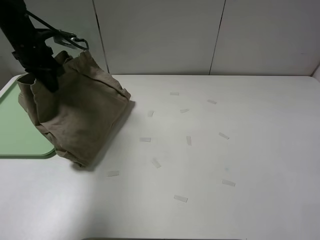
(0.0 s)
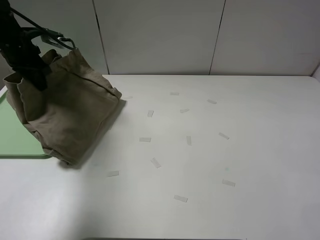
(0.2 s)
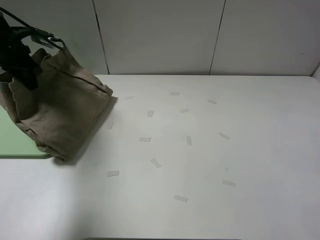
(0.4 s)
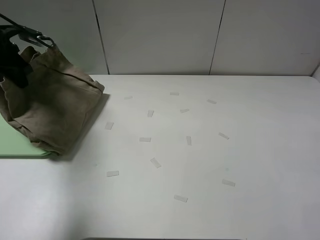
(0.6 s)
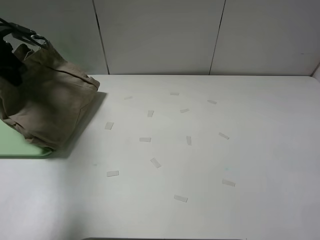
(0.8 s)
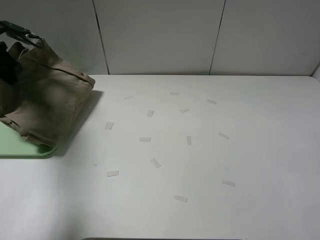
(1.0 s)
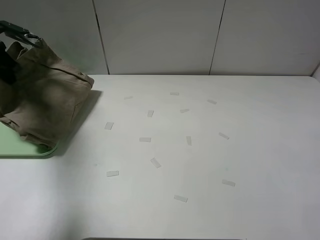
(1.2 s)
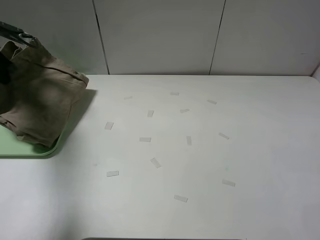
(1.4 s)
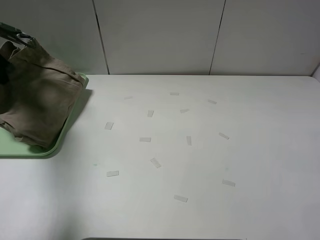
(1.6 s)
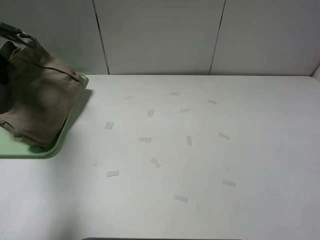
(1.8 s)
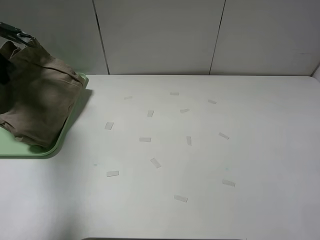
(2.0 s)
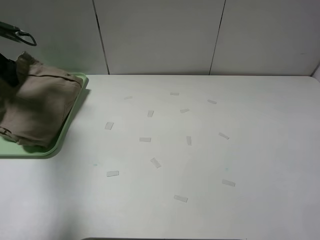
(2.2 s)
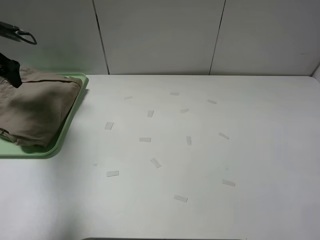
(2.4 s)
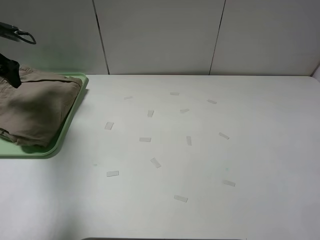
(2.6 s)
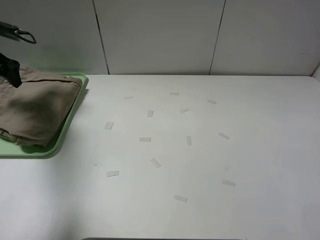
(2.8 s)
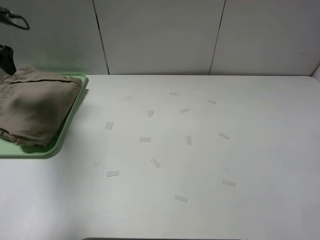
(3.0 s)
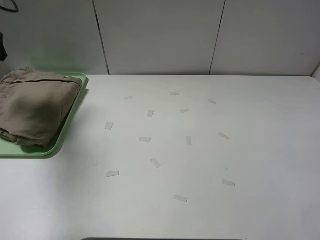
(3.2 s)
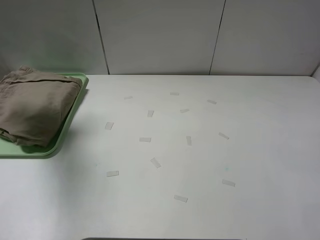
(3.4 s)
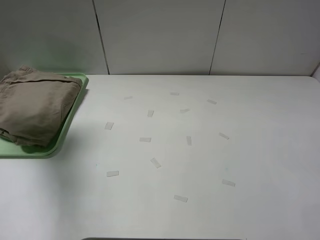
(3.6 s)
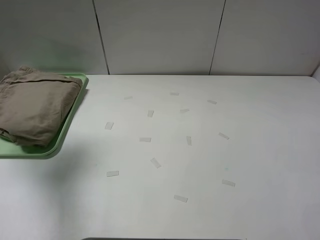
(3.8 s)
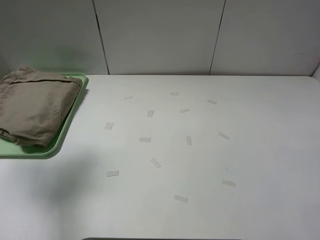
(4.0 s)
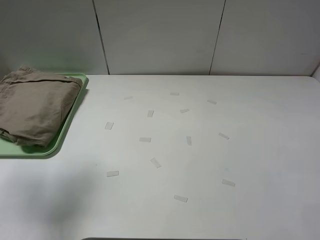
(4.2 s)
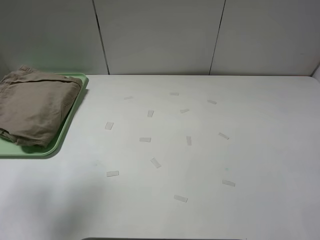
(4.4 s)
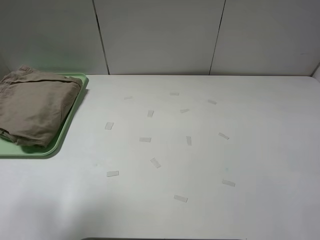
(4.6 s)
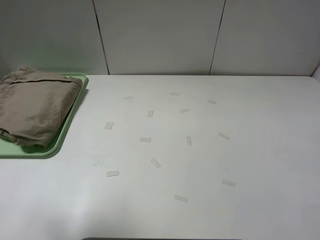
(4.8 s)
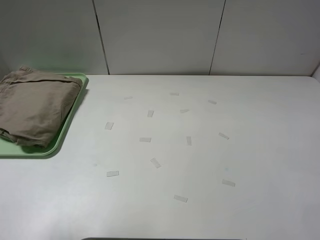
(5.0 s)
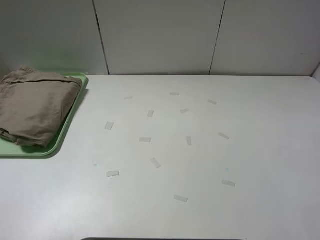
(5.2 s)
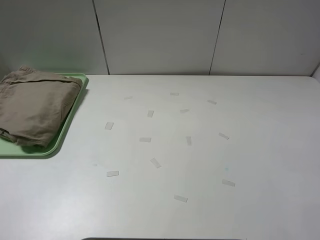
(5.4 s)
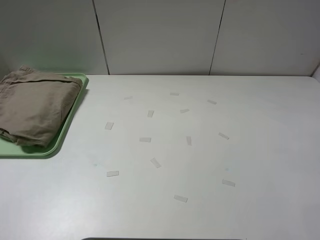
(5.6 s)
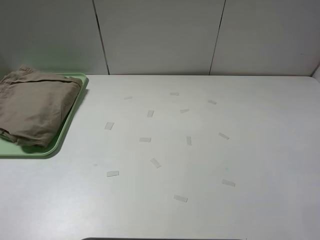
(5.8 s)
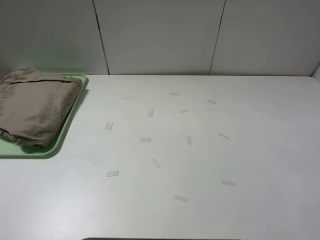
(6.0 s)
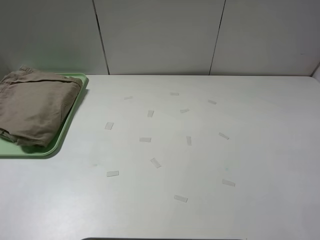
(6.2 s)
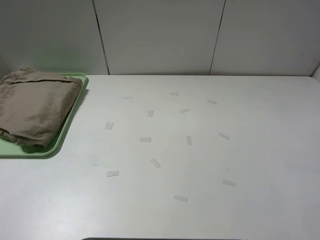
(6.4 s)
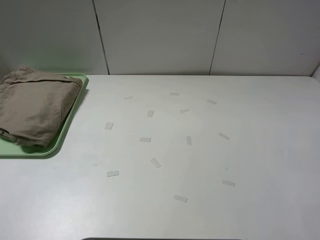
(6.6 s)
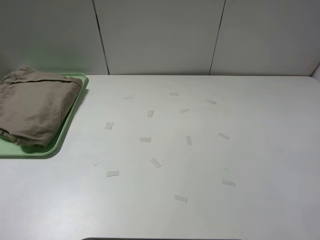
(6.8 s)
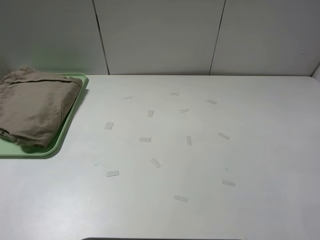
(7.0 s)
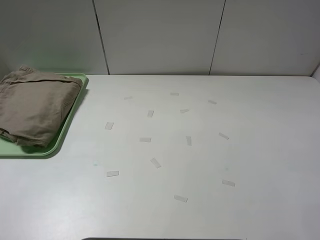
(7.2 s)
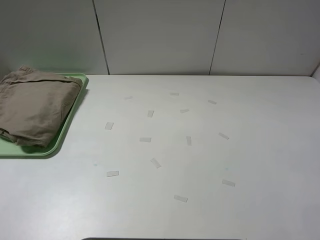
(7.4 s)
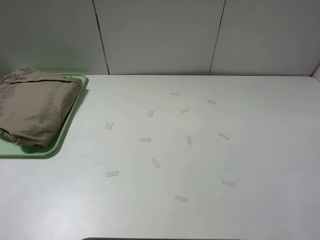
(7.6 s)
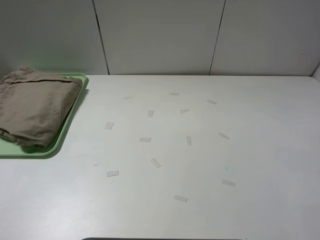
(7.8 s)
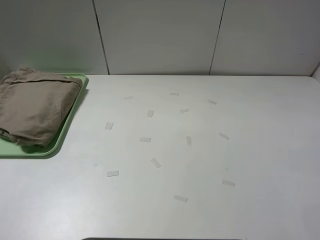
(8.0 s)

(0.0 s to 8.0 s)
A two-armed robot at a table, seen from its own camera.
Task of the whole recording: fold the khaki jeans in half with two grippers, then fold them in half again, and use the left claw to place the folded fold khaki jeans on the tray.
Step, 0.0 s - 2.2 s: Place the folded khaki trousers on the green tray with the left gripper.
0.0 s - 1.6 s: The left gripper moves to the left, some 15 cm.
1.6 s - 3.2 s: The left gripper shifts roughly 10 cm upward, and opens up.
3.2 s - 4.8 s: The left gripper moves backward, some 30 cm.
4.8 s - 6.4 s: The left gripper is displaced backward and downward by roughly 15 cm.

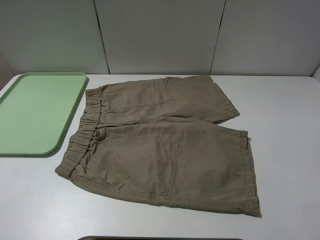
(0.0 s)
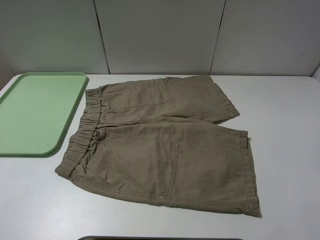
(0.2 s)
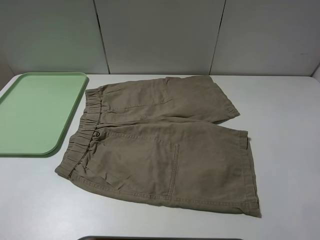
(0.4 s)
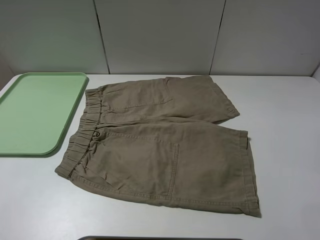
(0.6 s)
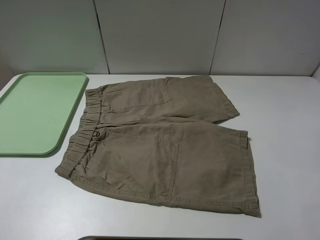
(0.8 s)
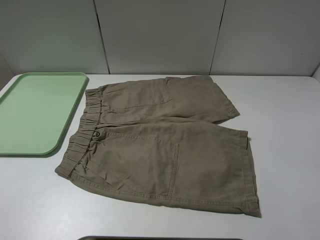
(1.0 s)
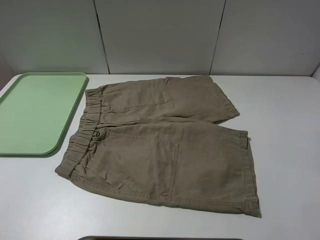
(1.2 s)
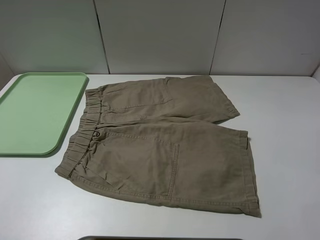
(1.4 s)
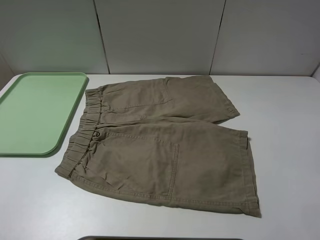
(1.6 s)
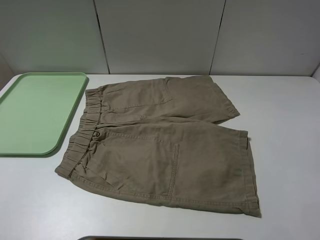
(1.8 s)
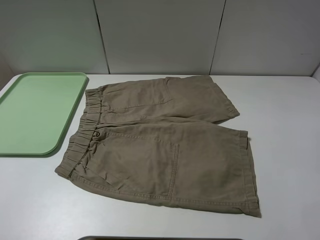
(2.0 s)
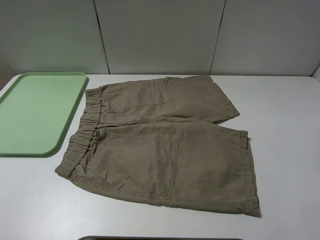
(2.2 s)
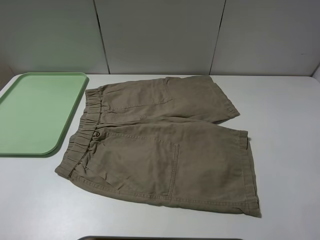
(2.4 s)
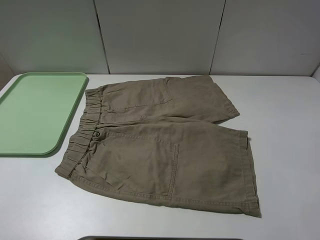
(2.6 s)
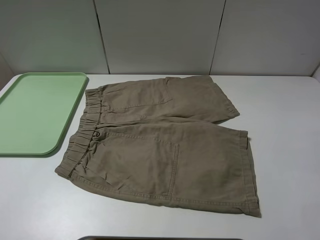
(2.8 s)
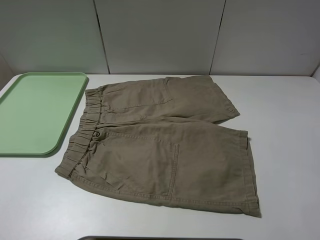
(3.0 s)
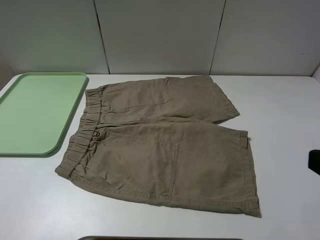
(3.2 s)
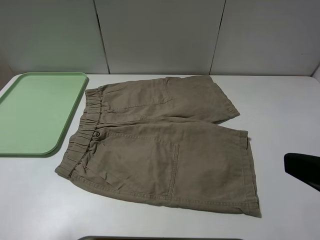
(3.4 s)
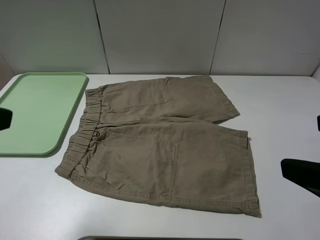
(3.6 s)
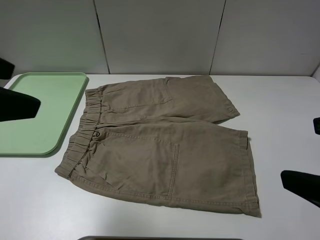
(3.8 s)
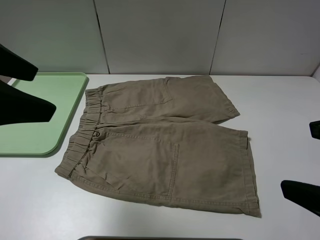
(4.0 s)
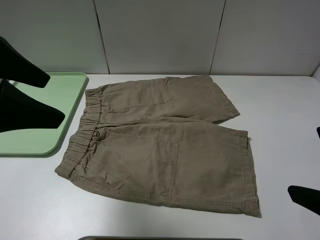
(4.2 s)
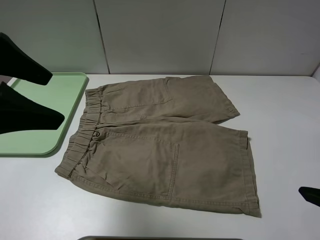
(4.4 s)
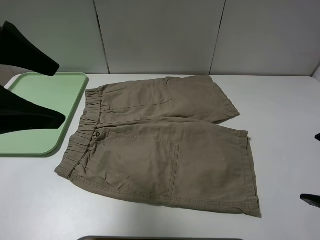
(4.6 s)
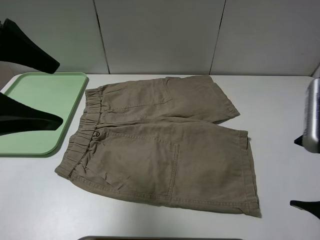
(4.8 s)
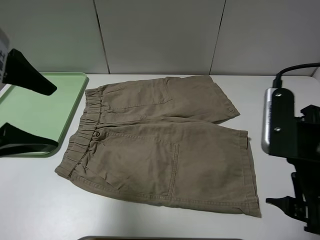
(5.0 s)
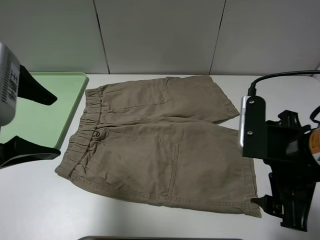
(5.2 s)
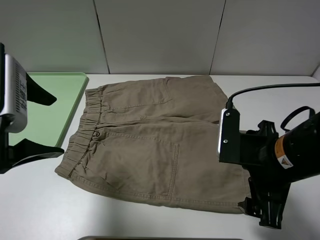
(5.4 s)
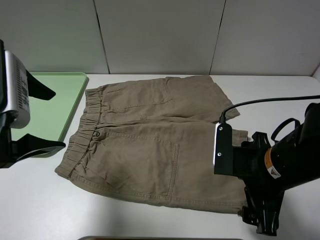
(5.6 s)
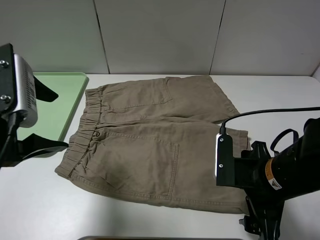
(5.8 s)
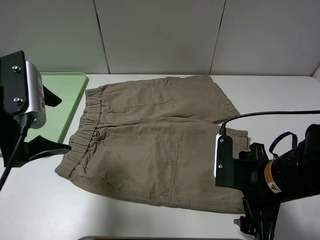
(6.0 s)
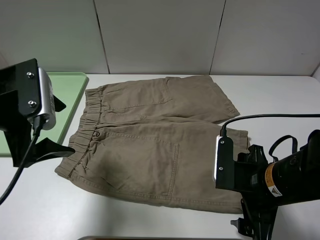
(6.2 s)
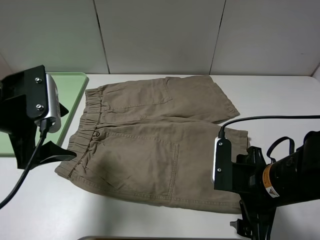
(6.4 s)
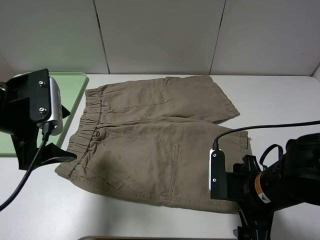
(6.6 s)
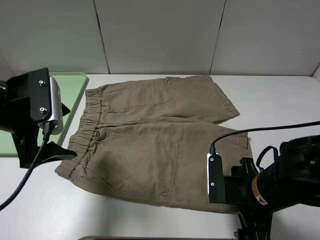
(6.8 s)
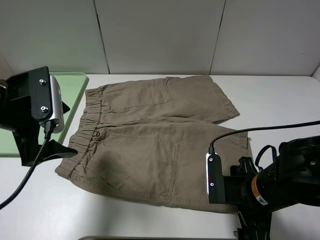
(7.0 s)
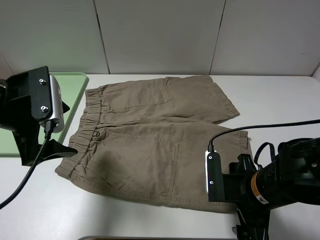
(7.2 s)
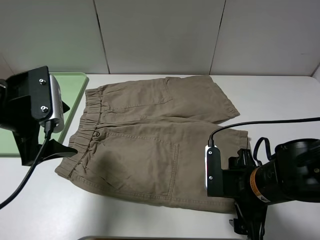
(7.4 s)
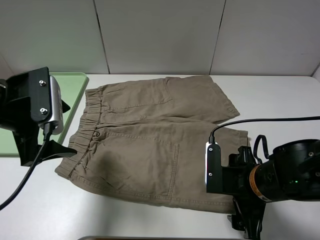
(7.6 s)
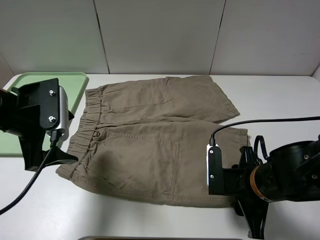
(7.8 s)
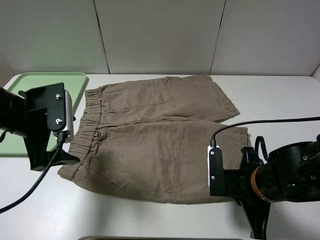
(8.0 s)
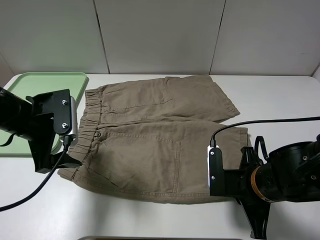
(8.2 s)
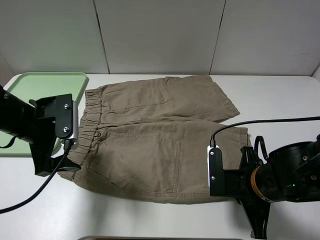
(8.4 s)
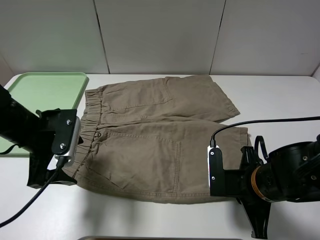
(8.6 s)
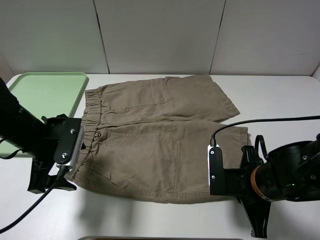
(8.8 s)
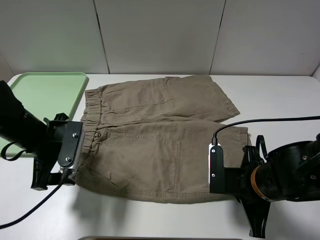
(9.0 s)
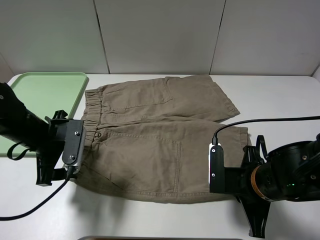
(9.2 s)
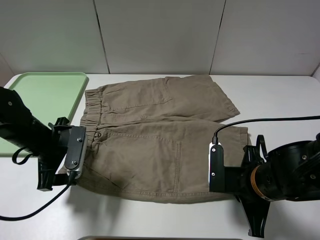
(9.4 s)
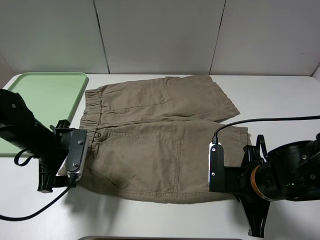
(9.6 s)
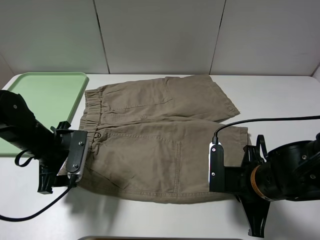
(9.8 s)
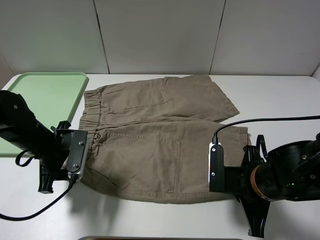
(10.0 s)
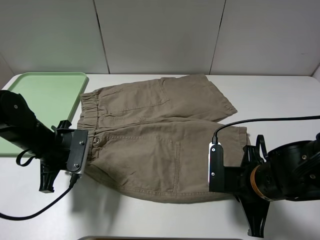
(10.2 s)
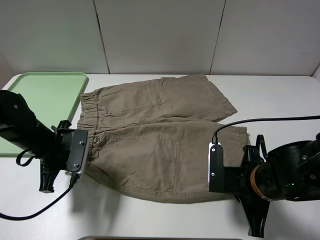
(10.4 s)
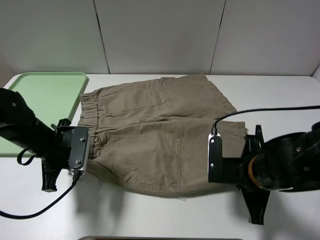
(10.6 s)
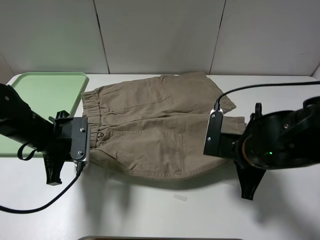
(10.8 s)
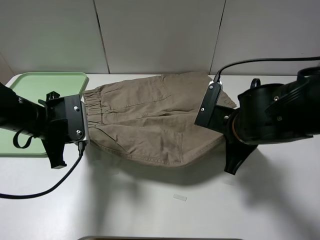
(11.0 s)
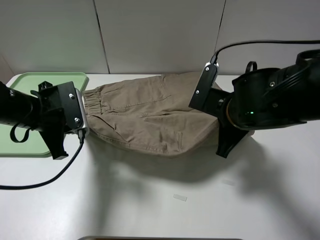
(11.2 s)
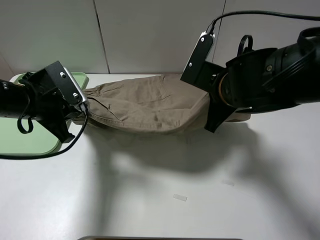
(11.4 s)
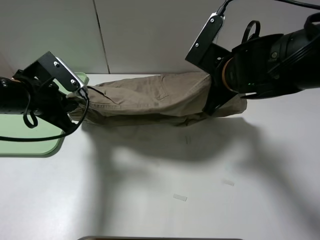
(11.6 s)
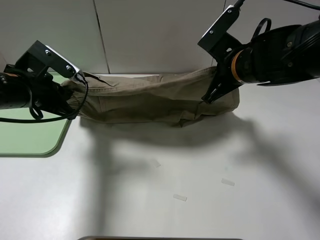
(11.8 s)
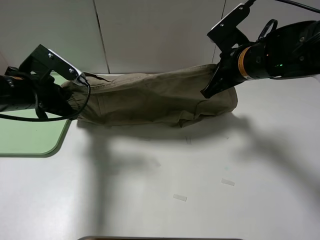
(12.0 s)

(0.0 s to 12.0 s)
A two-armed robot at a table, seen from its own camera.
Task of the whole recording: fold the khaki jeans in half with two grippers, then fold them in half again, and use the left claw to place the folded fold khaki jeans on the tray.
Step, 0.0 s - 8.0 s: Grasp the khaki trousers with the right gripper.
Step, 8.2 s - 10.2 s: Grasp the khaki trousers with the left gripper.
3.0 s - 4.4 s: The right gripper changes place by about 5 cm, while the left gripper goes roughly 20 cm forward and to the right.
4.4 s - 6.0 s: The right gripper heads downward, to the left and forward, covering roughly 15 cm. The left gripper shifts some 10 cm downward.
6.0 s - 7.6 s: The grippers make only small movements.
7.6 s - 9.0 s: The left gripper travels downward by approximately 10 cm. The right gripper closes up.
9.0 s - 10.4 s: The left gripper closes up.
10.4 s - 12.0 s: The right gripper goes approximately 20 cm forward and upward; the left gripper travels upward by roughly 10 cm.

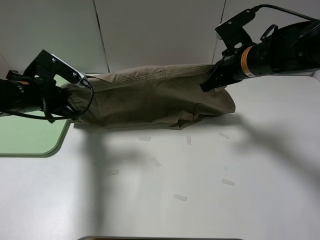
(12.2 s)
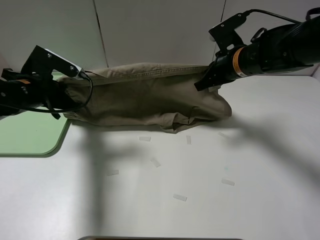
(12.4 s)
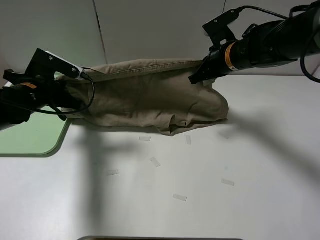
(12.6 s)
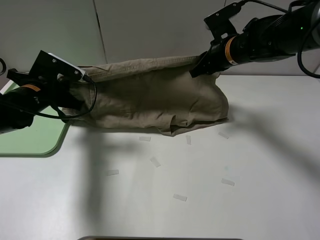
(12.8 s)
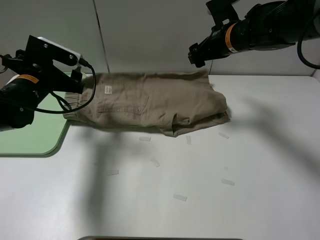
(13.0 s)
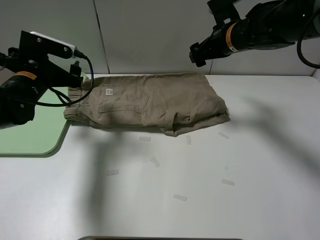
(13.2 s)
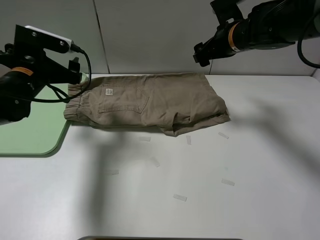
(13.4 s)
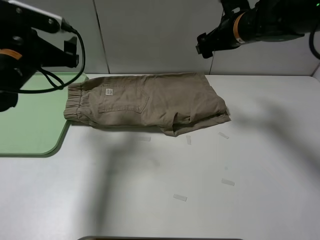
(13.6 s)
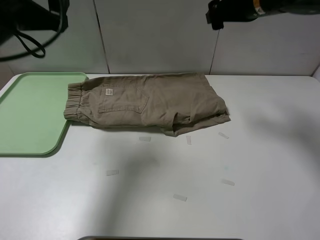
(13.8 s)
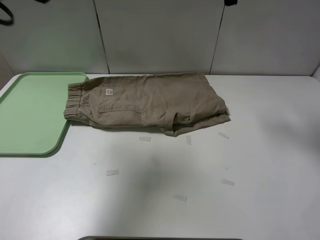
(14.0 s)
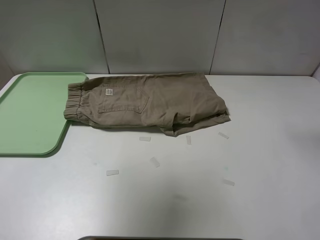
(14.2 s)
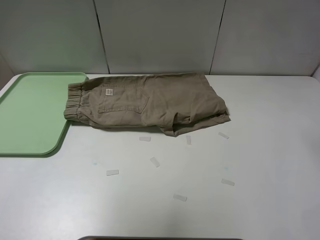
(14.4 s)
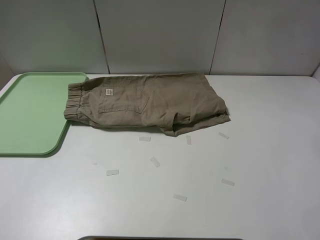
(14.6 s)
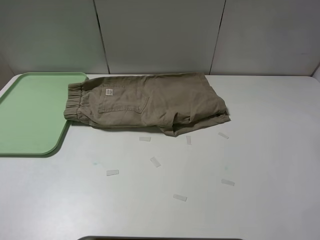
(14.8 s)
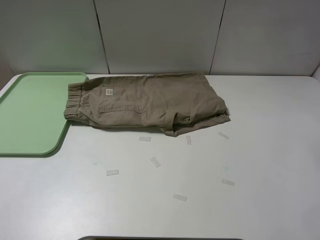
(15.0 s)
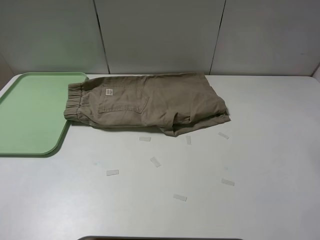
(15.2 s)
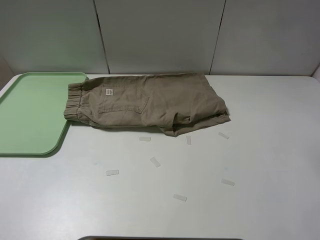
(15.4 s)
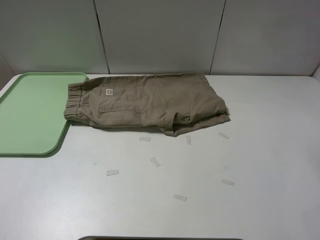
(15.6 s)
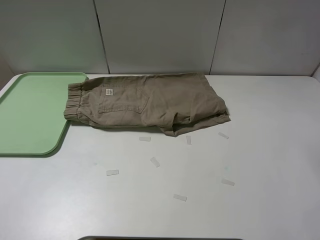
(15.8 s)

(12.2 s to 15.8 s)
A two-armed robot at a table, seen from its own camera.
Task of the whole recording: fold the khaki jeans in half with two grippers, then fold them in half again, and use the left claw to place the folded fold khaki jeans on the tray.
12.2 s - 14.0 s: The grippers both shift upward by approximately 20 cm. The right gripper opens up, while the left gripper opens its fingers.
14.0 s - 15.8 s: The left gripper heads backward, covering some 25 cm. The right gripper shifts approximately 15 cm backward and upward.
